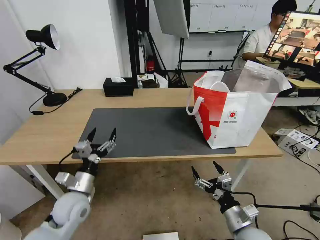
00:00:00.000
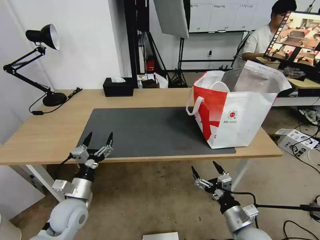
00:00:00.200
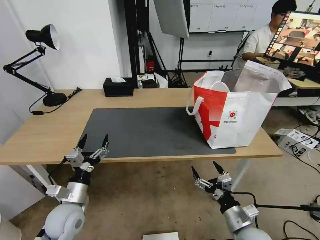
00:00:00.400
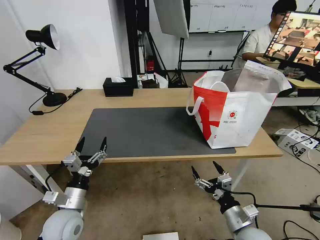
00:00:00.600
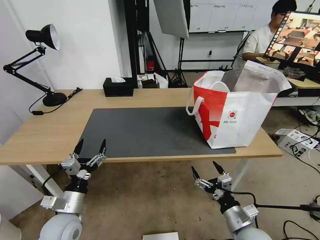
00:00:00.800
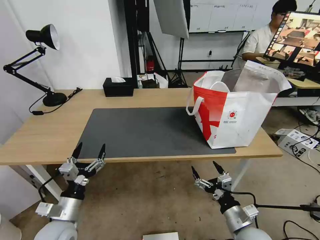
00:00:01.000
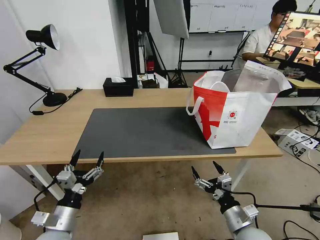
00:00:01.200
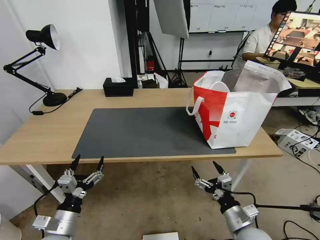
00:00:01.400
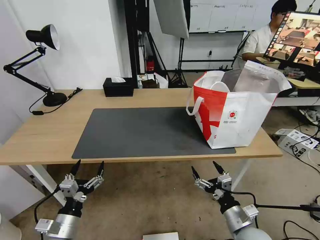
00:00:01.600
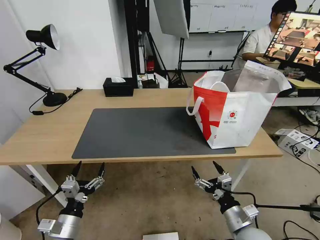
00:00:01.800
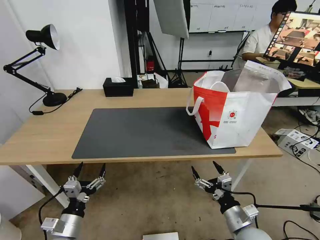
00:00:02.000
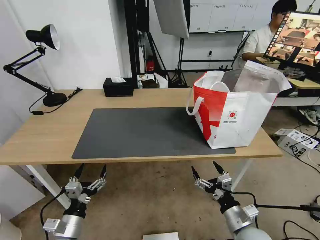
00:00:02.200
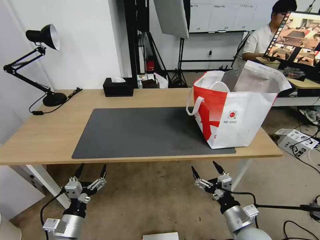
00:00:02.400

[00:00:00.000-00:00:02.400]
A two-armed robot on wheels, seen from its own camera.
Task of the whole recording: Pick up the trash from the table and place it into the takeout bag.
00:00:00.000 to 00:00:01.200: The left gripper heads backward, covering about 10 cm.
00:00:01.200 to 00:00:02.400: The grippers stay close to where they were, moving slightly.
